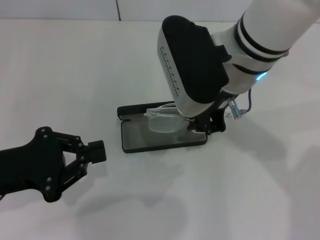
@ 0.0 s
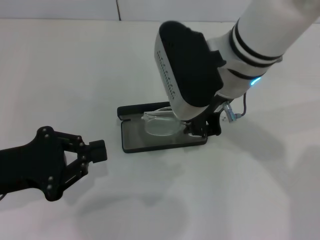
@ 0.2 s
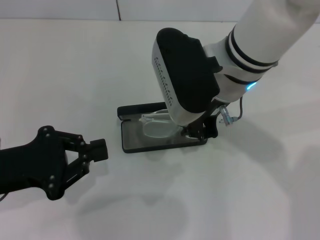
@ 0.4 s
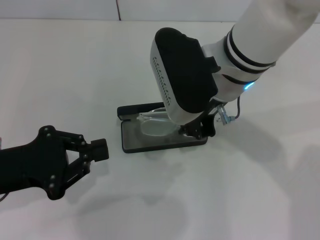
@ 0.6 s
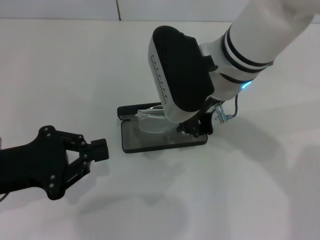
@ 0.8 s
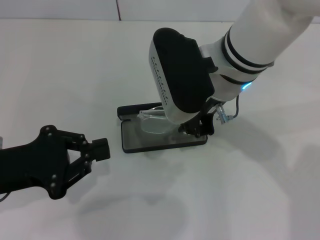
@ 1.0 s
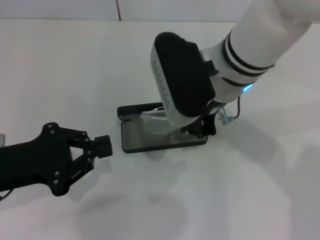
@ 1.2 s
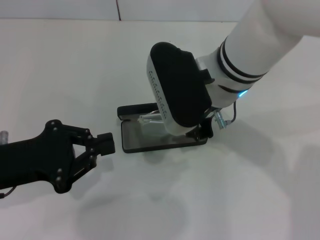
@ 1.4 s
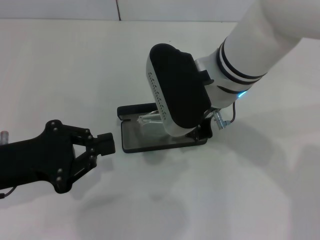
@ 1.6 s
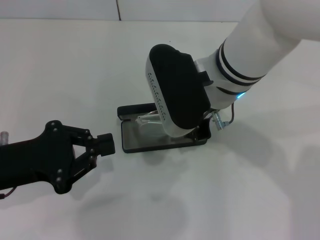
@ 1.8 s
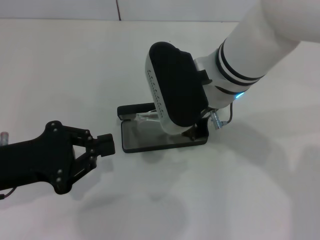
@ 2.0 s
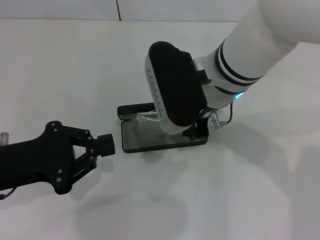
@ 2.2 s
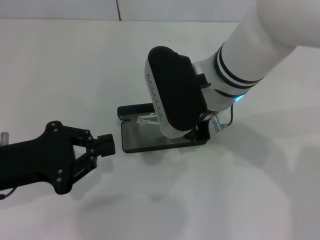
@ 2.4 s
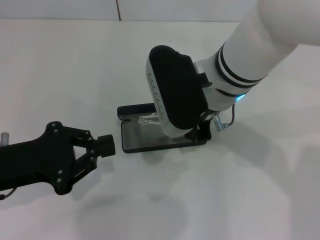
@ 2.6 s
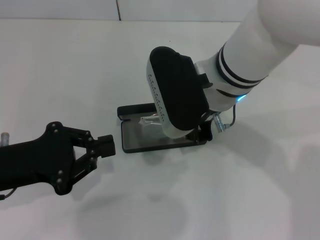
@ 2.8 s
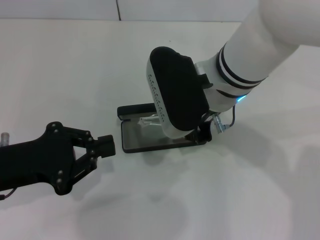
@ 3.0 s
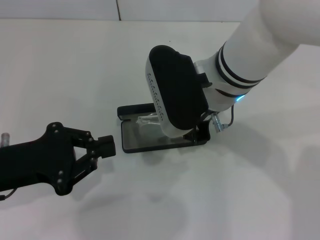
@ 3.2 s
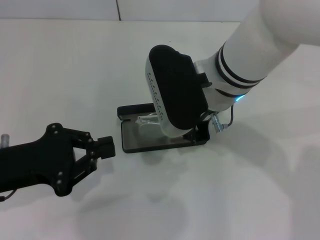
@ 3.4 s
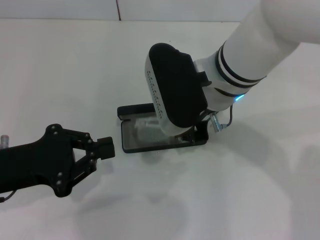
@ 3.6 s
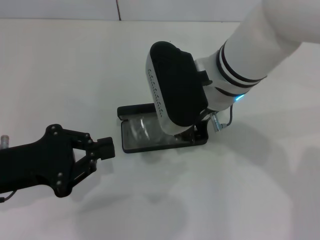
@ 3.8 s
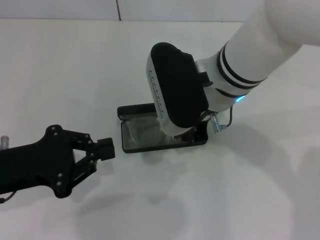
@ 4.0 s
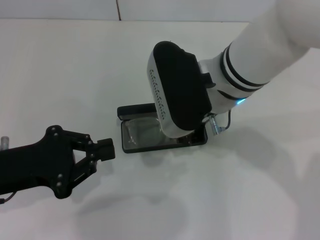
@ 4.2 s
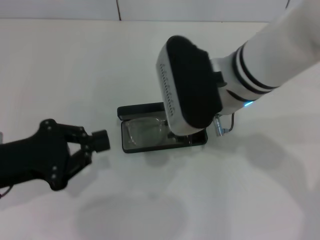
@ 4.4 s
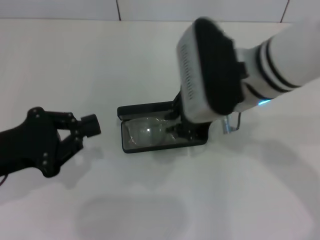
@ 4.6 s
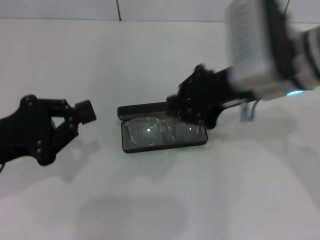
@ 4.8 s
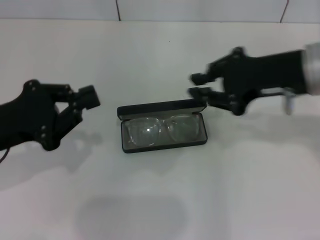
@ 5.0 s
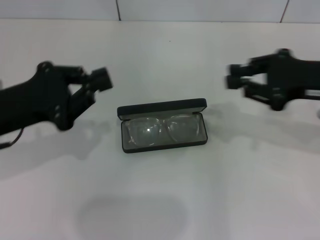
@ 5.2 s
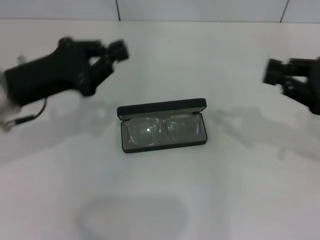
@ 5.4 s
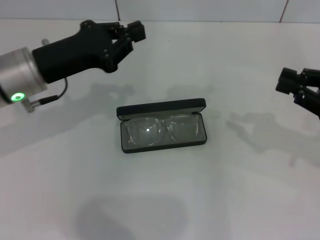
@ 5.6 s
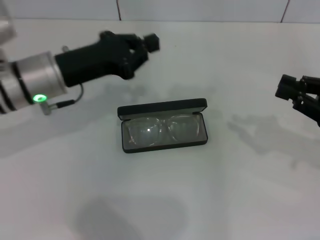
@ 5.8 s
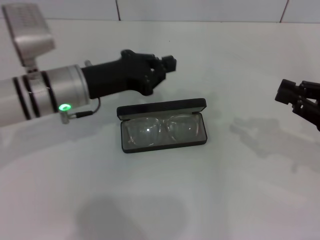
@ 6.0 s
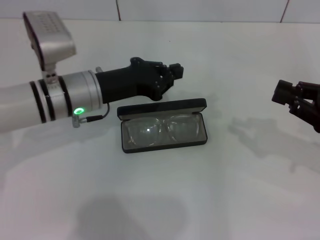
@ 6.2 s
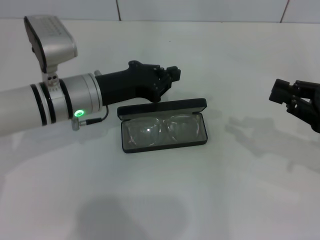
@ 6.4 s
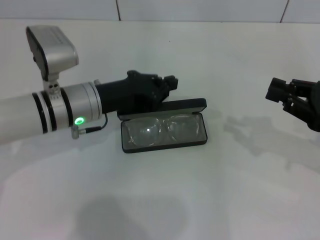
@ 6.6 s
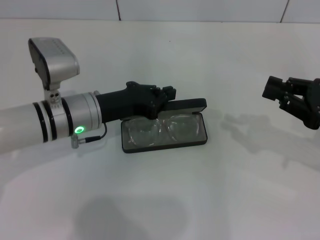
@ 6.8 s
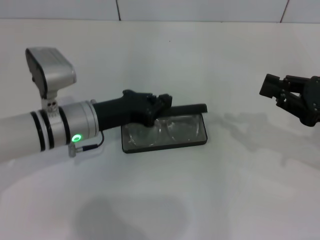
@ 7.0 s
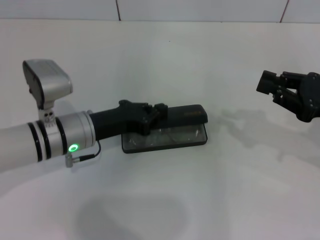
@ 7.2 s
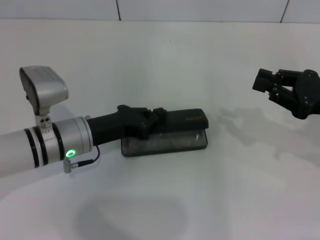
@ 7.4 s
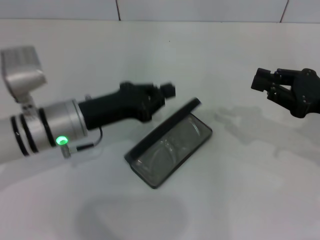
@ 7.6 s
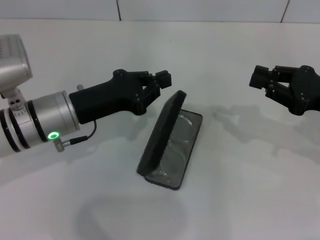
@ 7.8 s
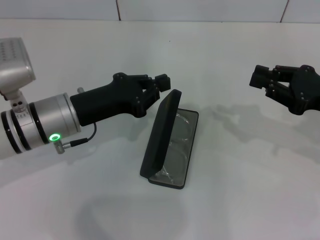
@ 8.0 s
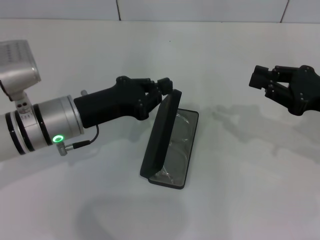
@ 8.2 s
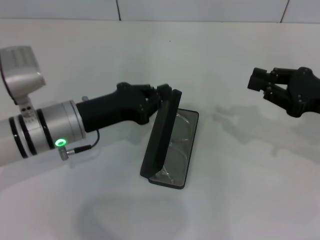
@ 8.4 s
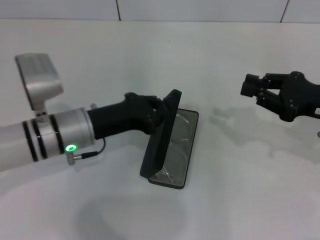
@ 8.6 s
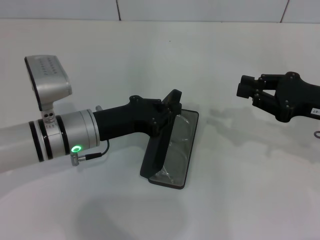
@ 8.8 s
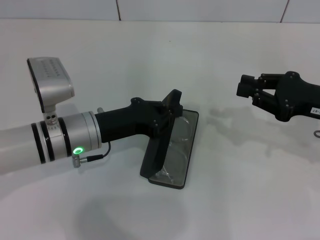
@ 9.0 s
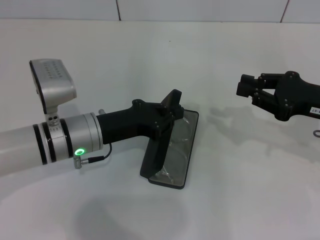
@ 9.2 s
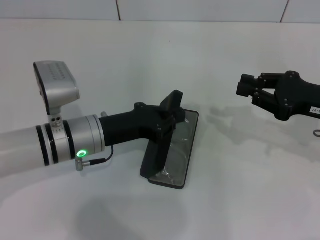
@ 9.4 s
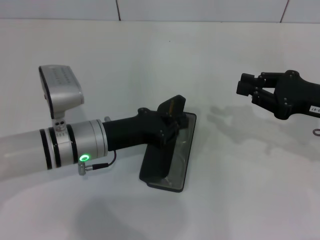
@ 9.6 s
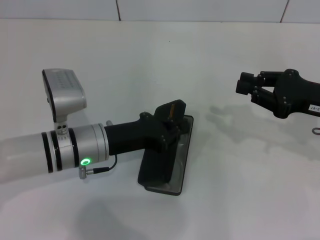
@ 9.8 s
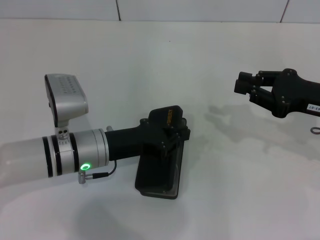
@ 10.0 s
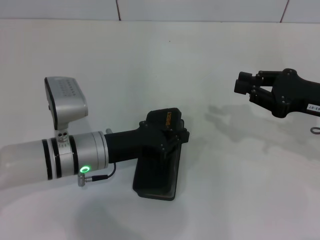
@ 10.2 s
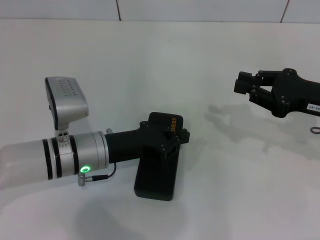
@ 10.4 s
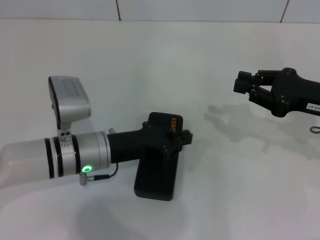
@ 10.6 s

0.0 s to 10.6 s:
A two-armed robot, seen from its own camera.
Step, 0.0 to 4.0 s: Put the glasses into the case with your right hand.
Step, 4.2 to 10.4 s: Close the glasses case with your left hand.
0.0 to 1.6 s: The grippers make only small movements.
1.6 to 3.0 s: The two grippers keep their place.
4.6 to 6.0 s: The right gripper is displaced to the right by some 25 cm; the left gripper shifts some 15 cm forward and to the right.
7.6 to 10.6 s: The grippers make only small movements.

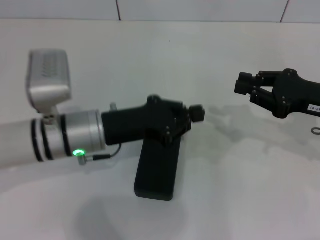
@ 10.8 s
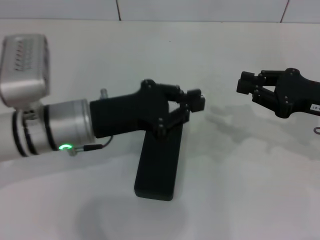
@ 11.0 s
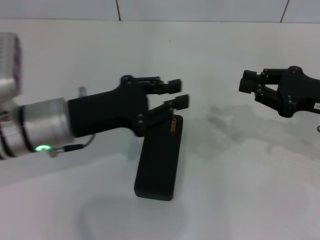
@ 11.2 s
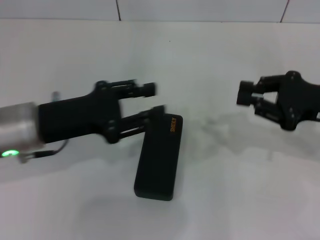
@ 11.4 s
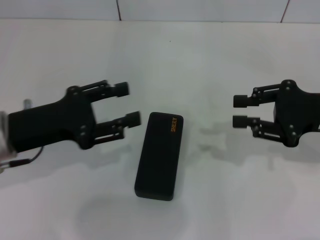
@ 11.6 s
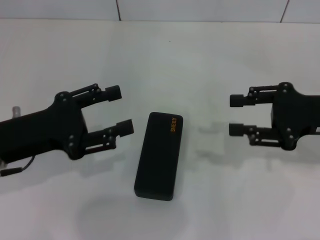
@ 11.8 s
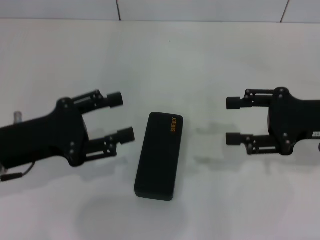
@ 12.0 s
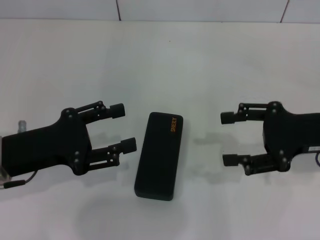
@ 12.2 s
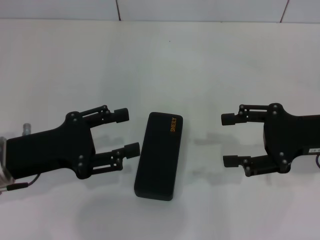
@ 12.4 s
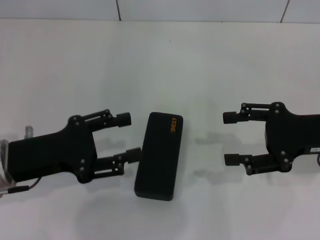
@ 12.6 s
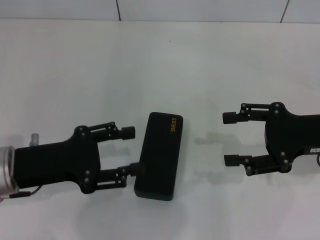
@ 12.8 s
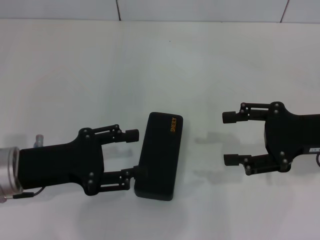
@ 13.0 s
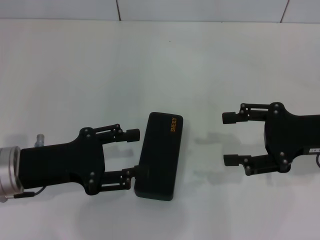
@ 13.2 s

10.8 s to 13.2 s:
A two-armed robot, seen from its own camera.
10.8 to 12.0 s: The left gripper heads to the left and backward, covering about 10 cm, and opens its fingers, while the right gripper opens up.
12.0 to 13.2 s: The grippers make only small movements.

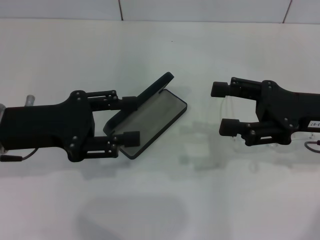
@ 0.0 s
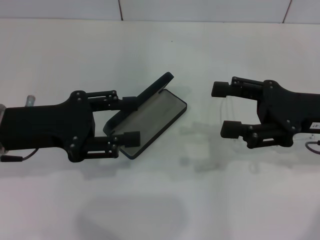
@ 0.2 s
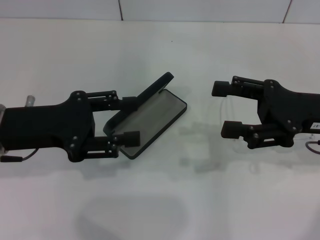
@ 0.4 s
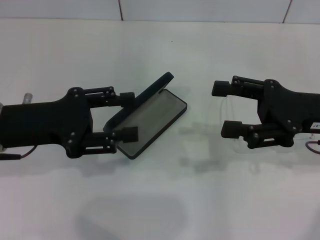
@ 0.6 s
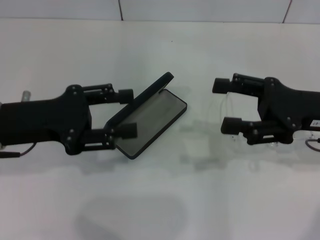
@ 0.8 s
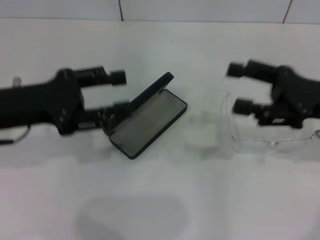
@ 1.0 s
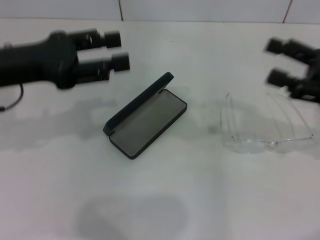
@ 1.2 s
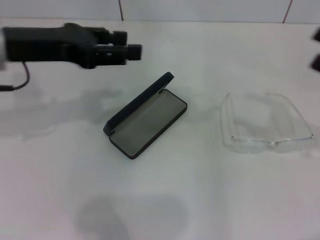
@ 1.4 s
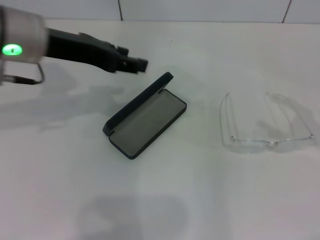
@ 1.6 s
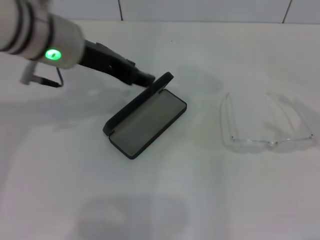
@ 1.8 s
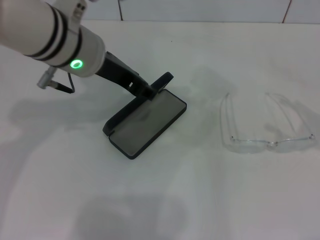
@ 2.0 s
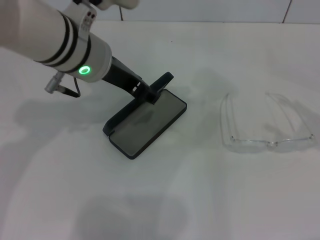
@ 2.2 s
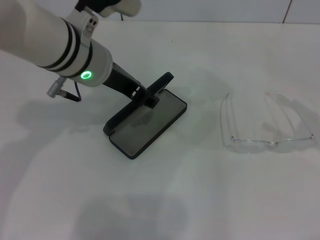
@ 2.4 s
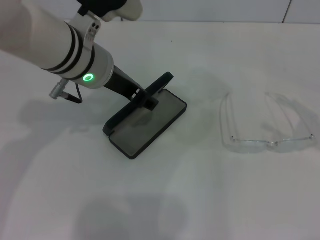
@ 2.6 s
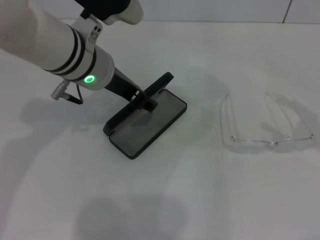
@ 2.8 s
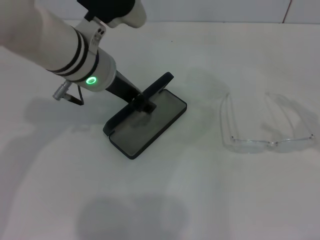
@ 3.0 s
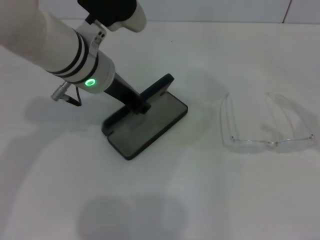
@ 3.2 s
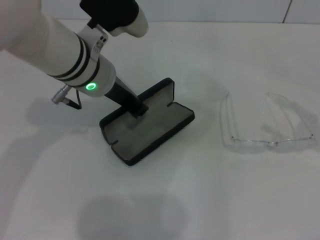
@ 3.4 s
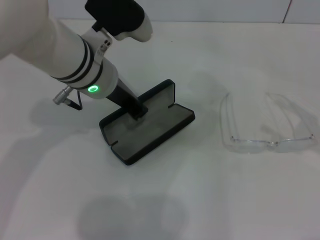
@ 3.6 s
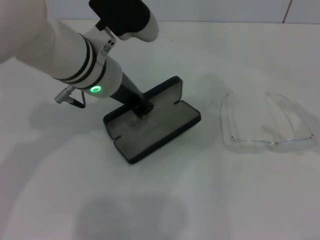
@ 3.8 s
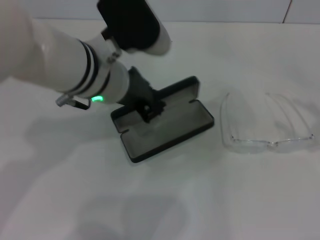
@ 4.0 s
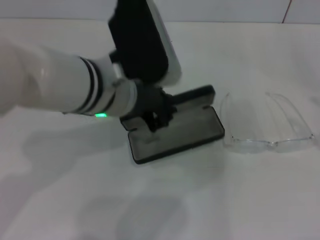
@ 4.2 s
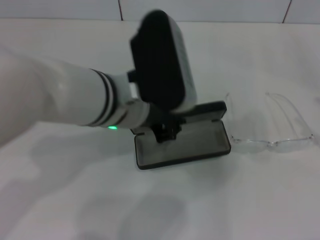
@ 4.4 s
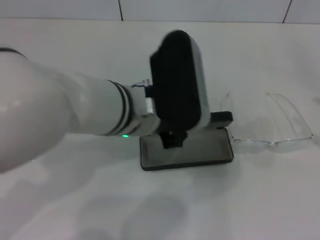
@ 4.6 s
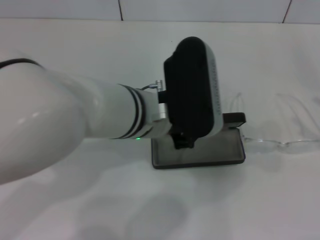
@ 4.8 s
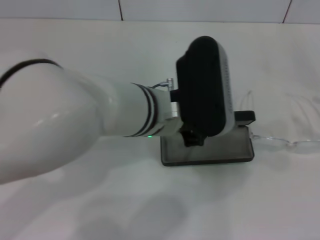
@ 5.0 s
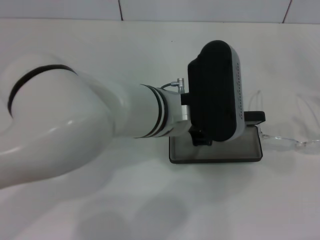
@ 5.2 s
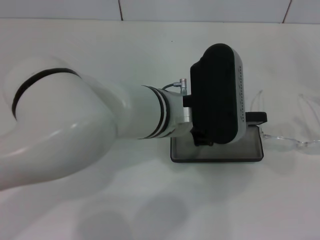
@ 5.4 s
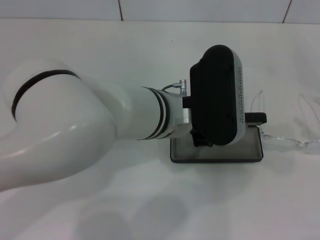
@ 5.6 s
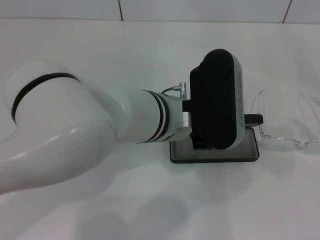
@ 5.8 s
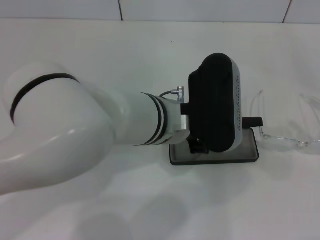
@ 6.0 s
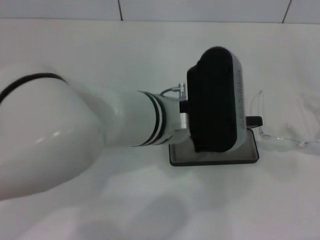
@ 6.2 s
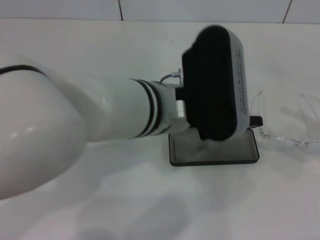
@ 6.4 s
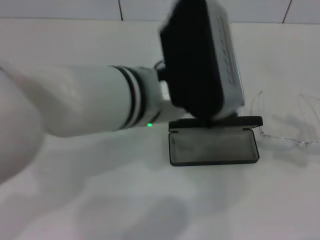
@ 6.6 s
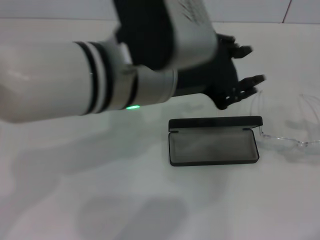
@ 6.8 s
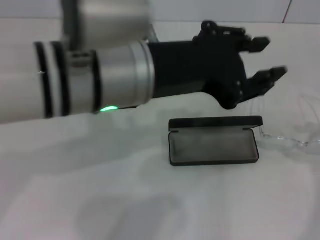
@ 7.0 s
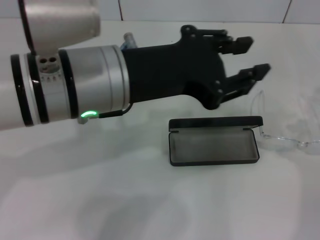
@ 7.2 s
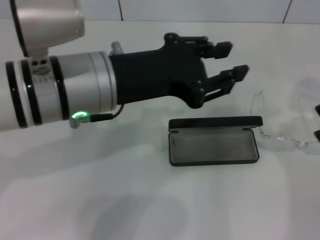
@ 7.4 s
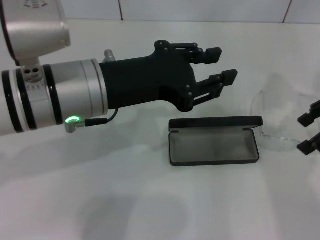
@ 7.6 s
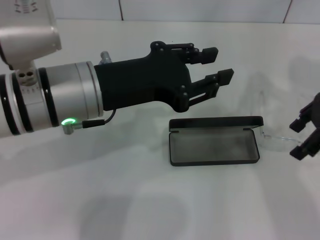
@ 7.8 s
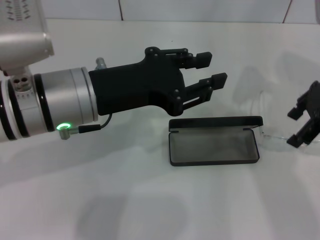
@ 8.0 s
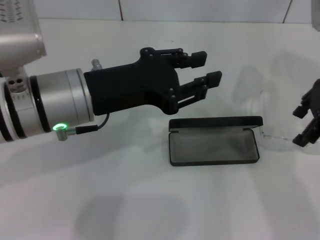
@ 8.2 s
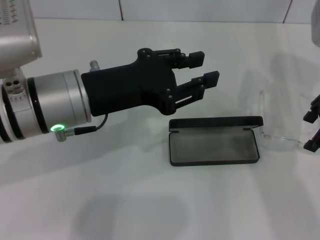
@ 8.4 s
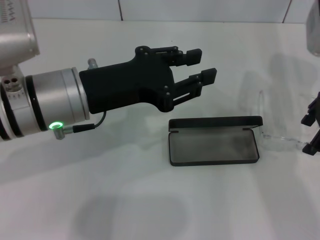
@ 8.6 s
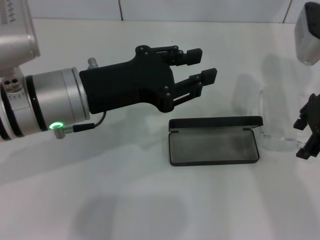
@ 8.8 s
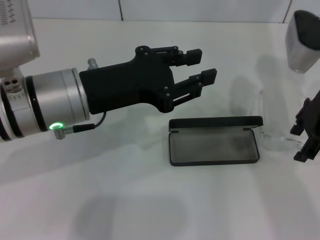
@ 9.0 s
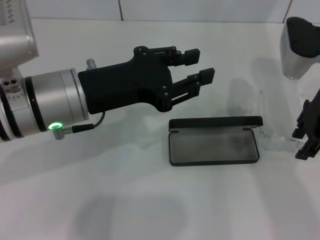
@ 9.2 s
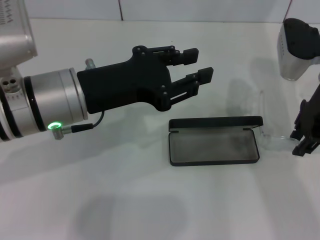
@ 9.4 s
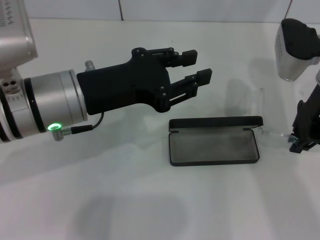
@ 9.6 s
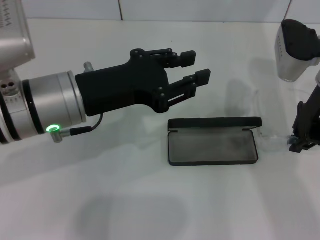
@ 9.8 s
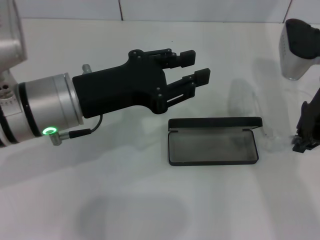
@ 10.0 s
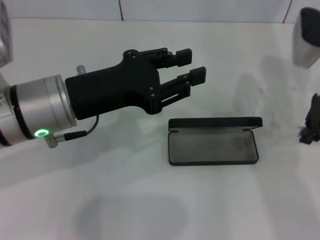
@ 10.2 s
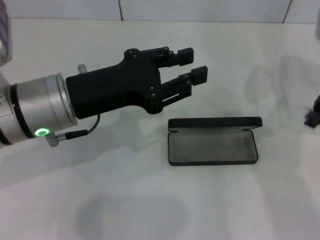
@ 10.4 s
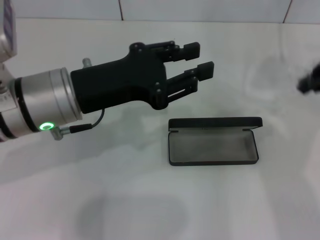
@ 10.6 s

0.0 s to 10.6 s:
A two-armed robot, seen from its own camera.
Step, 0.0 to 3.8 s: Grab the glasses case with your left hand.
Step, 4.0 to 6.0 s: Place the glasses case in the center of the table with your left hand.
Step, 6.2 to 9.6 s: Grab the eyeglass frame with your right hand.
0.0 to 1.6 s: The left gripper heads upward, forward and to the right, covering roughly 15 cm; the right gripper heads to the right, covering approximately 15 cm.
1.6 to 3.0 s: The left gripper travels to the right and downward by roughly 10 cm.
3.0 to 4.6 s: The left gripper goes about 10 cm backward and to the right, and closes.
6.0 to 7.6 s: The right gripper travels forward, to the left and upward by approximately 20 cm, while the left gripper goes about 10 cm to the left and upward.
7.6 to 9.0 s: The right gripper shifts approximately 5 cm to the left.
9.0 to 10.6 s: The right gripper travels to the right and upward by roughly 10 cm, and closes up.
